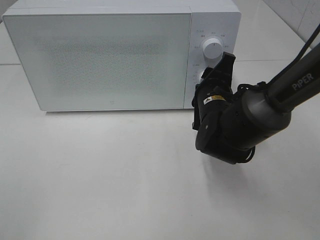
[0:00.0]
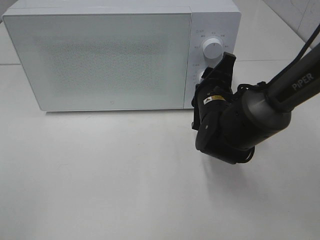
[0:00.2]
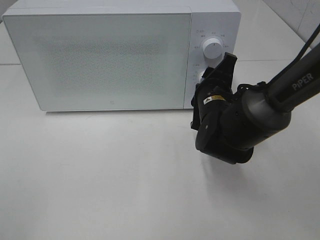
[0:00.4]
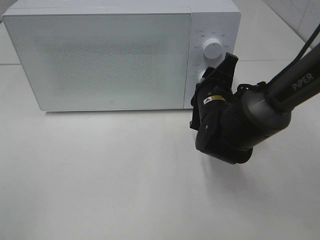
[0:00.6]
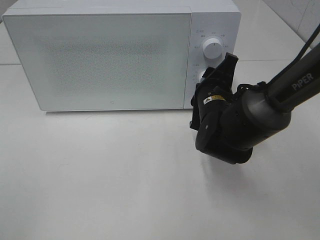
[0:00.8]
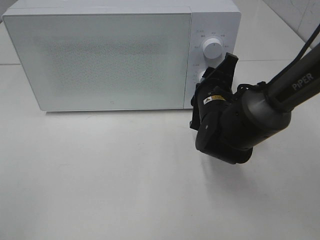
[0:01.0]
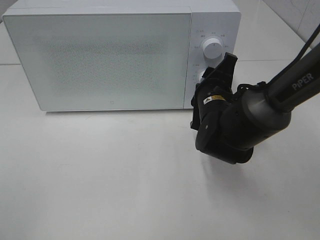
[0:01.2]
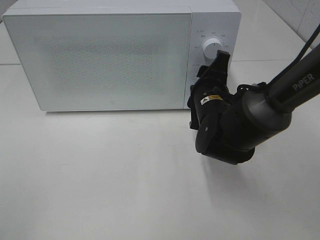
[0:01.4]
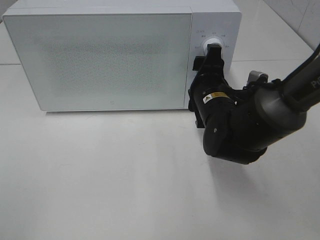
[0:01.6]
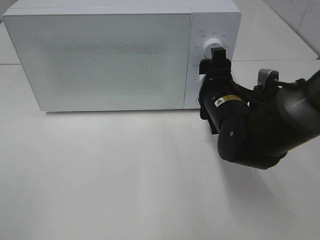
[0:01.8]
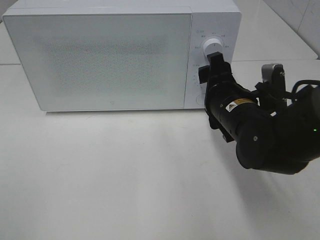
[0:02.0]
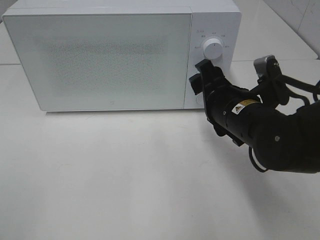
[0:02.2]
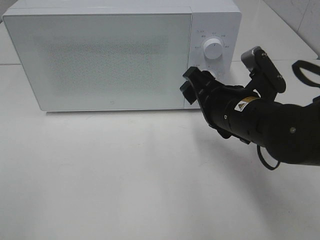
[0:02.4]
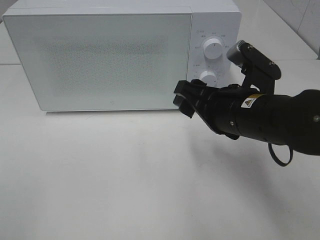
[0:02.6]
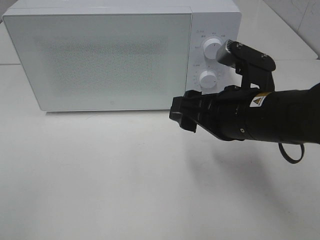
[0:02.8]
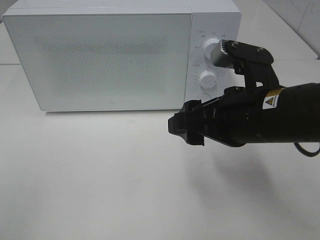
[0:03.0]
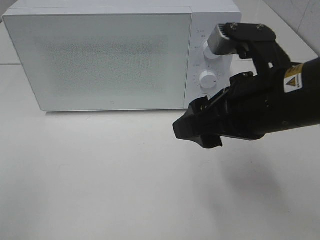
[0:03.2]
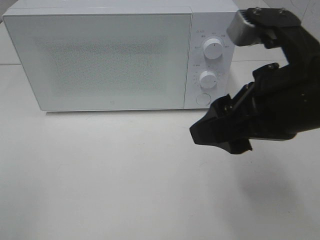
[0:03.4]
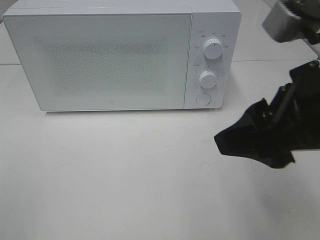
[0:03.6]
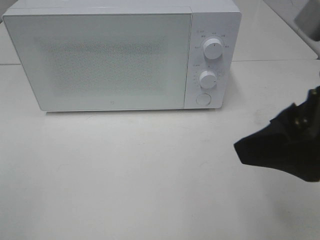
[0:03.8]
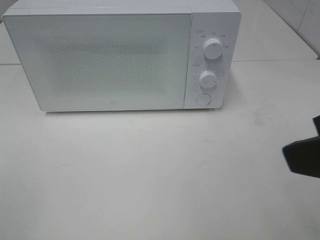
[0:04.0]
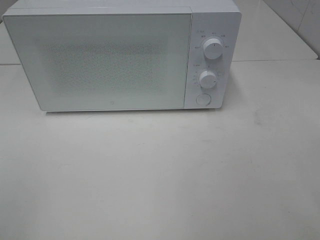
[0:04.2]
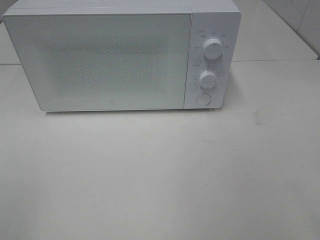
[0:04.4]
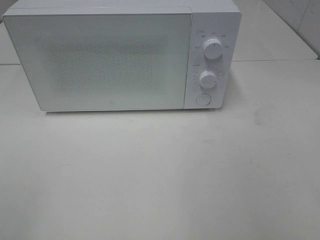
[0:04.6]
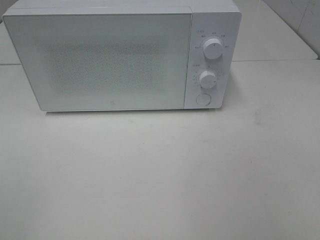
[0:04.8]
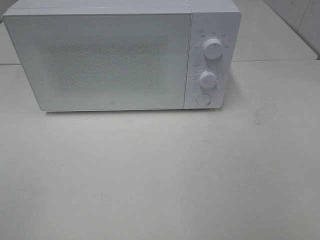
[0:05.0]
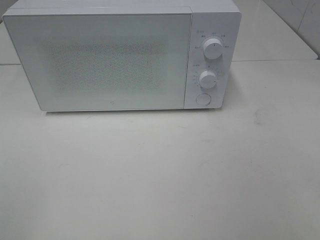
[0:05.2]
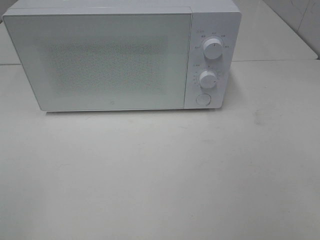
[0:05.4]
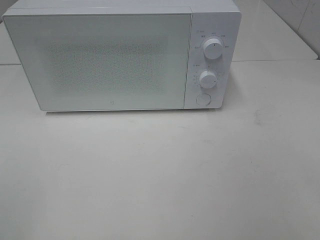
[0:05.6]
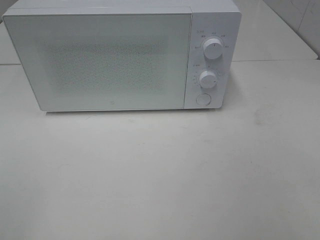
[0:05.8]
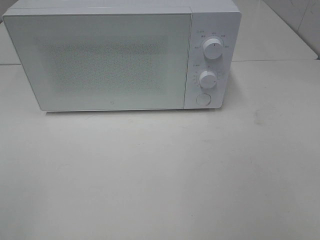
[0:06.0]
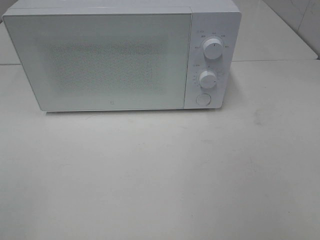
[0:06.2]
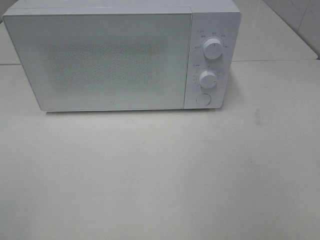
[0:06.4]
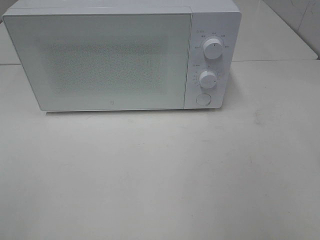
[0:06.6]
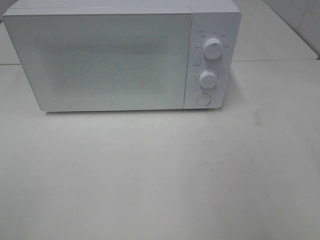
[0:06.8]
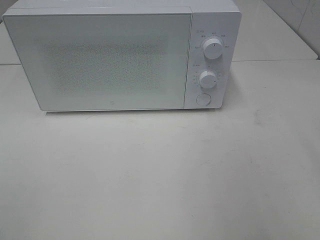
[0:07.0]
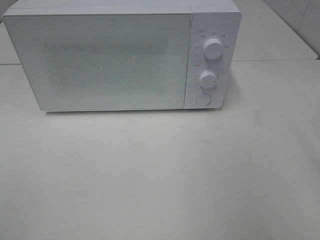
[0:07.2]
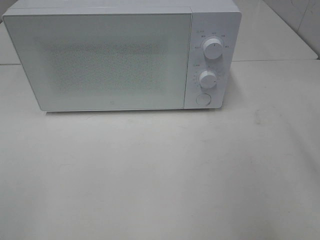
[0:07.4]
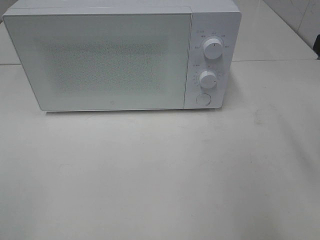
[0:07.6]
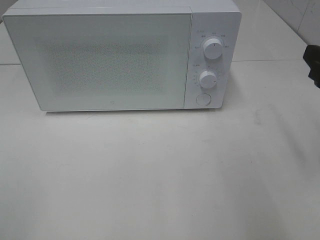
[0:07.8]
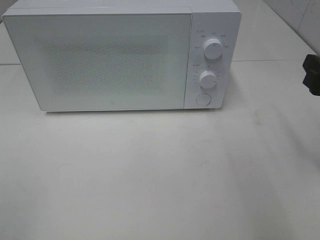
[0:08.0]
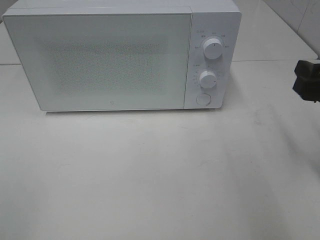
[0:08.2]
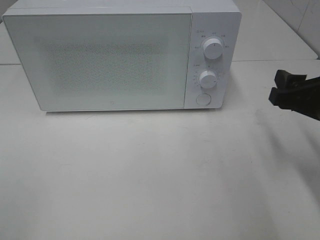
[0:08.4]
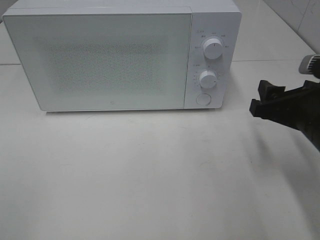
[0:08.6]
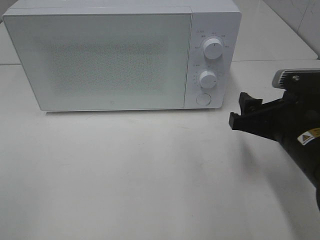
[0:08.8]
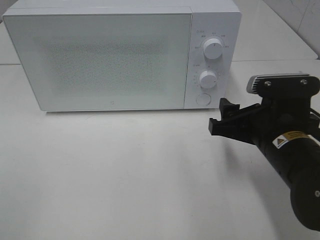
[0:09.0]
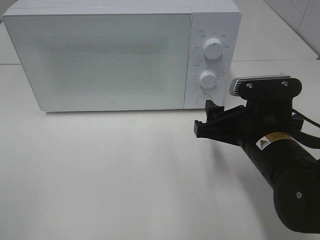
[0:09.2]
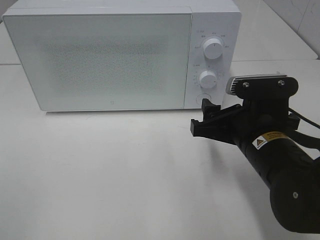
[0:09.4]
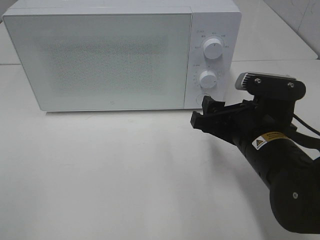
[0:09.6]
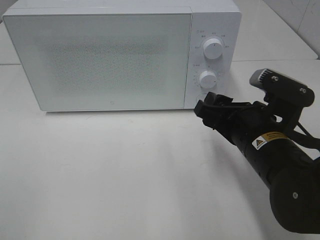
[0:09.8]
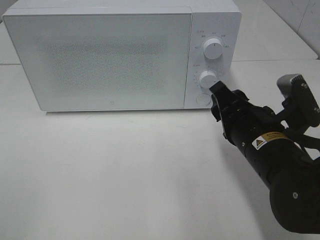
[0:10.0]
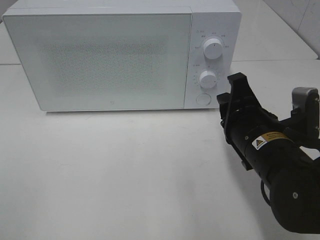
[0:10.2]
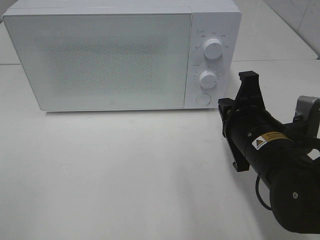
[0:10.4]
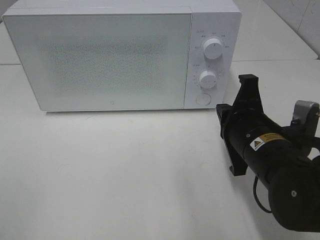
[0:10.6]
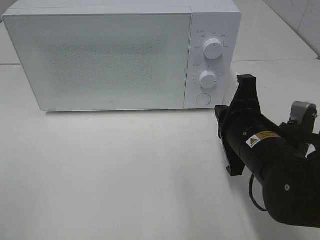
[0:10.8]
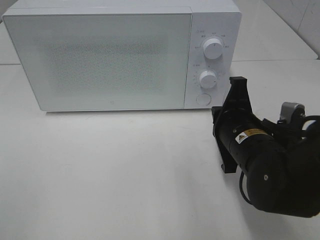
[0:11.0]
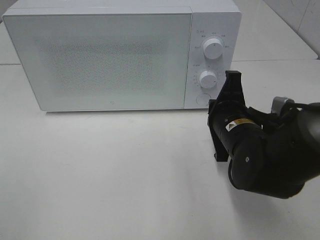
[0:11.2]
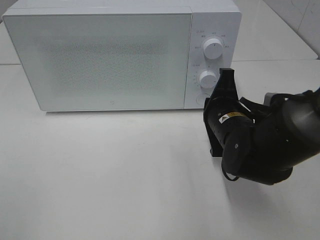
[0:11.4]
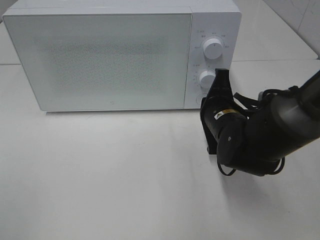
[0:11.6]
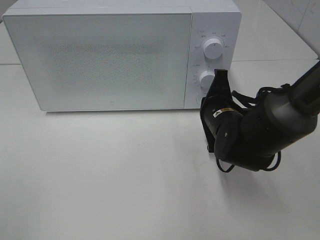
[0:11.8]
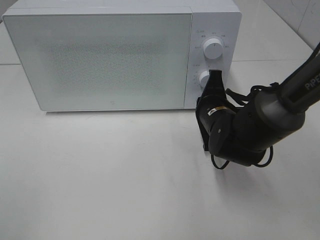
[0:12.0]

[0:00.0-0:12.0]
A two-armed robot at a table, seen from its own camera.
Task of the whole recording: Heat the burger.
Step, 0:00.0 to 0:02.0: Right hand: twist timer button.
0:00.0 to 0:01.6: The grippers stay close to where they were, moving slightly.
0:01.6 to 0:03.0: The right gripper heads backward and upward, covering some 15 cm.
0:03.0 to 0:04.4: The right gripper goes about 25 cm backward, to the right and upward.
0:07.6 to 0:09.0: The right gripper shifts some 15 cm downward and to the left.
0:09.0 to 0:10.4: The right gripper closes its fingers.
0:10.4 to 0:12.0: The right gripper shifts about 10 cm forward and downward.

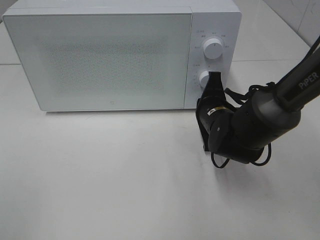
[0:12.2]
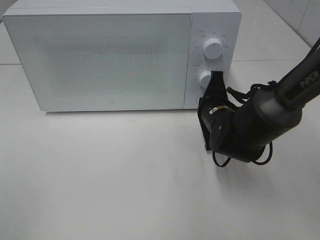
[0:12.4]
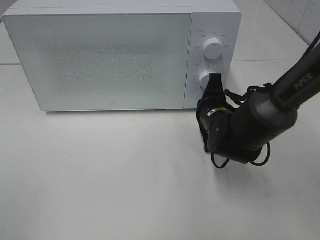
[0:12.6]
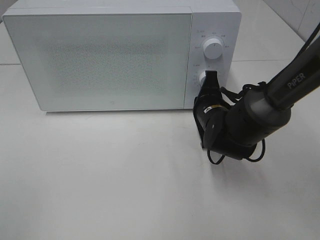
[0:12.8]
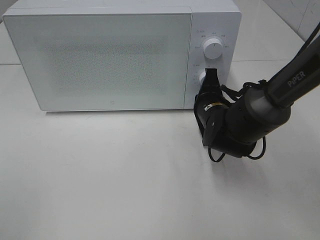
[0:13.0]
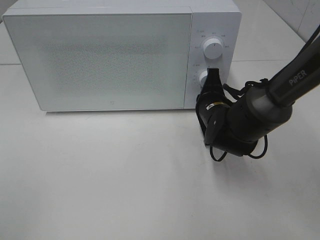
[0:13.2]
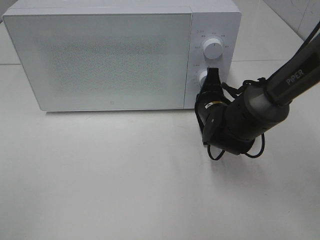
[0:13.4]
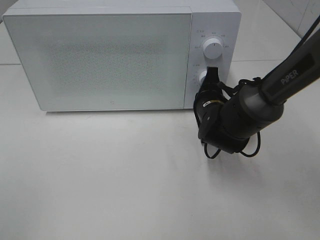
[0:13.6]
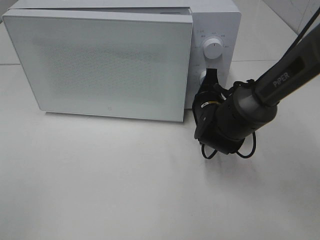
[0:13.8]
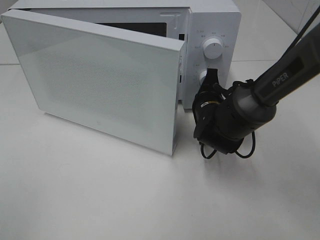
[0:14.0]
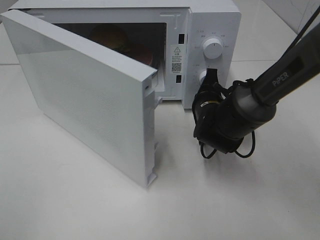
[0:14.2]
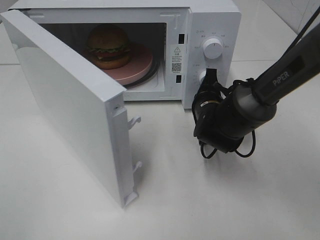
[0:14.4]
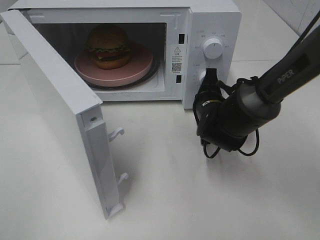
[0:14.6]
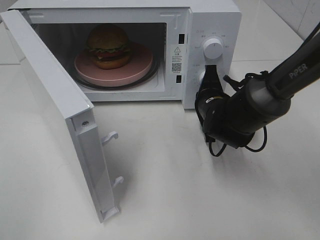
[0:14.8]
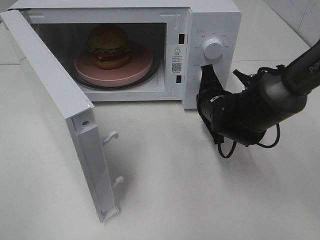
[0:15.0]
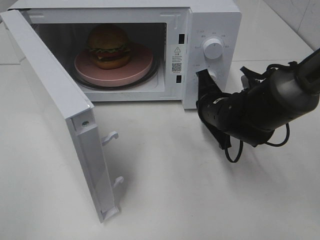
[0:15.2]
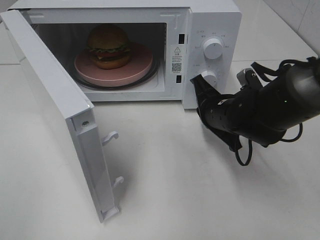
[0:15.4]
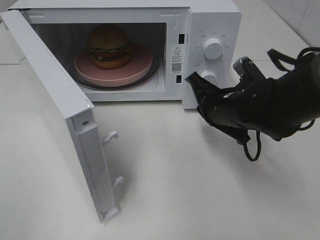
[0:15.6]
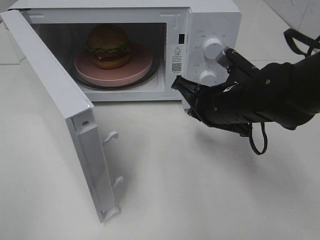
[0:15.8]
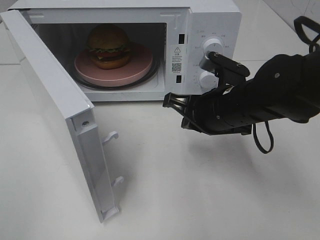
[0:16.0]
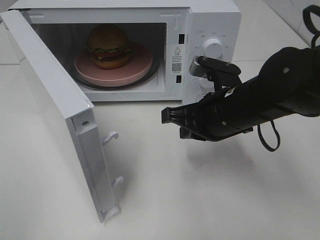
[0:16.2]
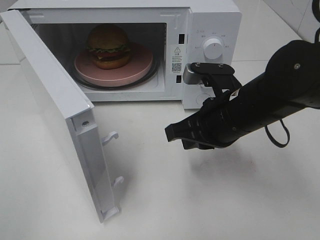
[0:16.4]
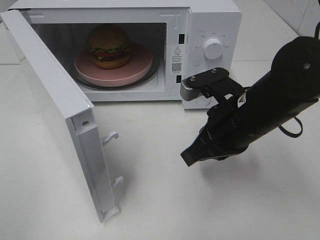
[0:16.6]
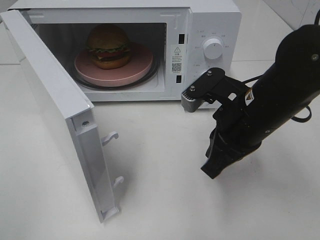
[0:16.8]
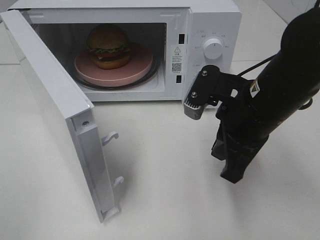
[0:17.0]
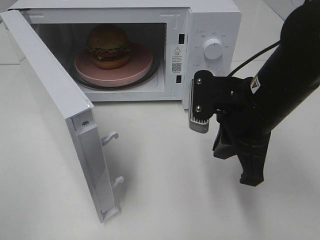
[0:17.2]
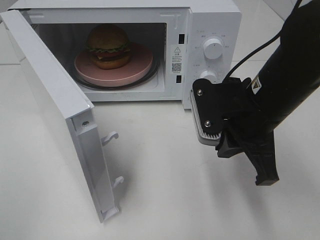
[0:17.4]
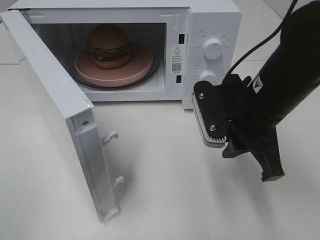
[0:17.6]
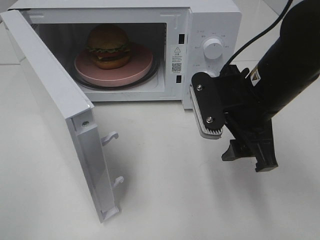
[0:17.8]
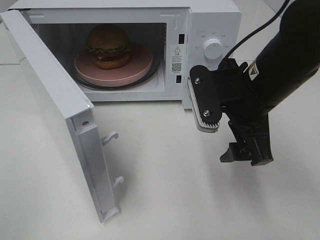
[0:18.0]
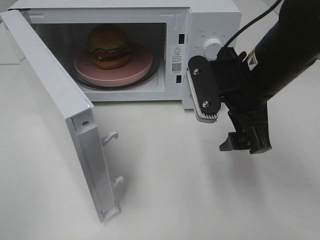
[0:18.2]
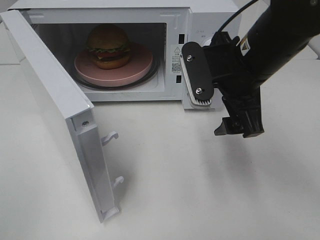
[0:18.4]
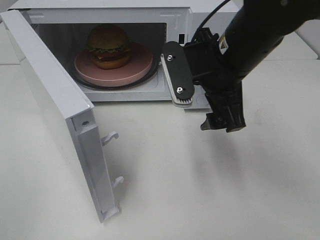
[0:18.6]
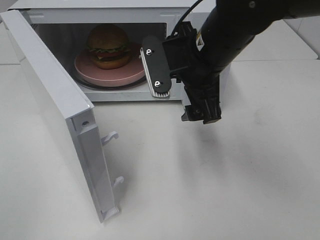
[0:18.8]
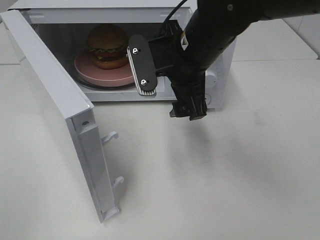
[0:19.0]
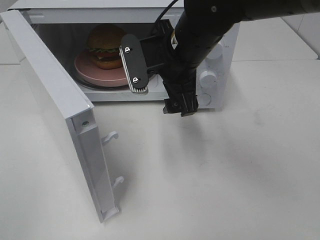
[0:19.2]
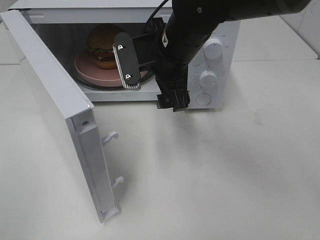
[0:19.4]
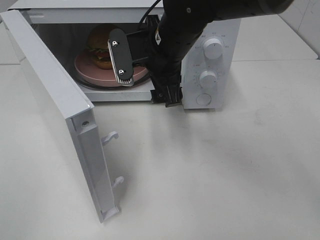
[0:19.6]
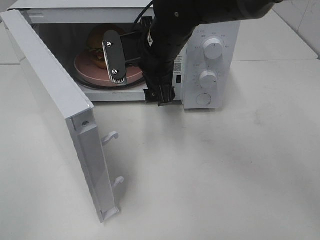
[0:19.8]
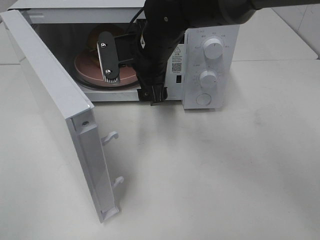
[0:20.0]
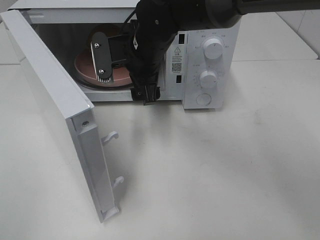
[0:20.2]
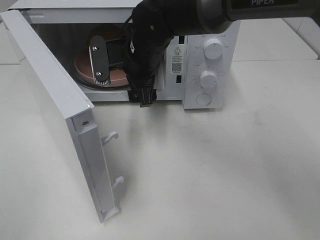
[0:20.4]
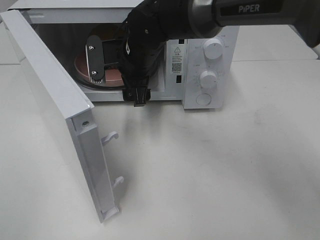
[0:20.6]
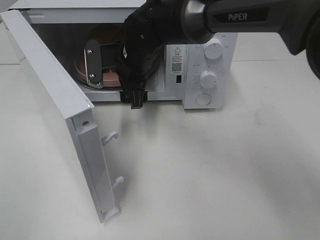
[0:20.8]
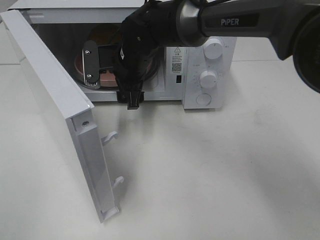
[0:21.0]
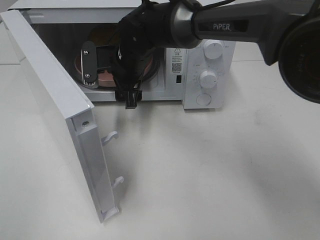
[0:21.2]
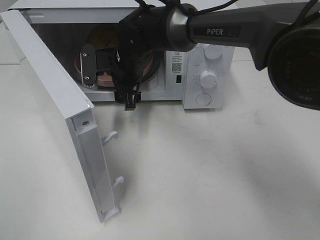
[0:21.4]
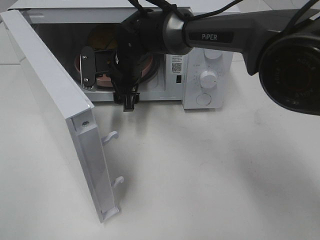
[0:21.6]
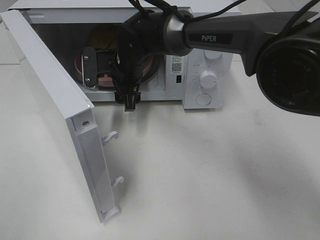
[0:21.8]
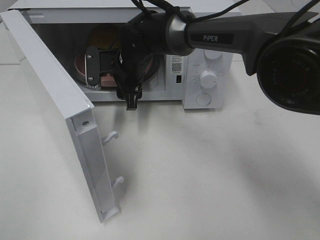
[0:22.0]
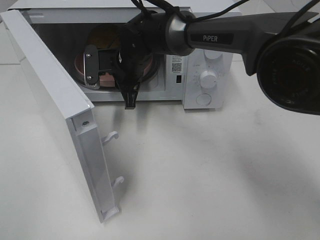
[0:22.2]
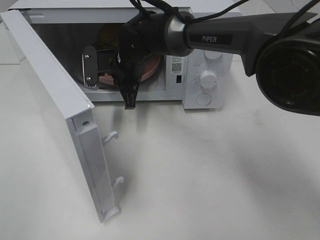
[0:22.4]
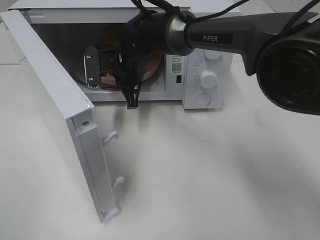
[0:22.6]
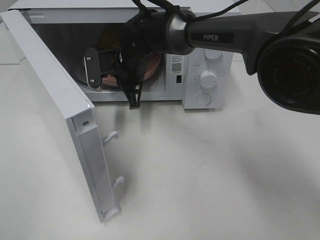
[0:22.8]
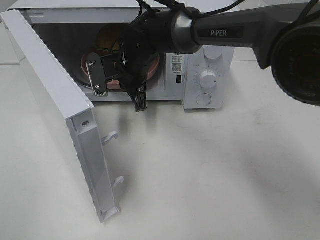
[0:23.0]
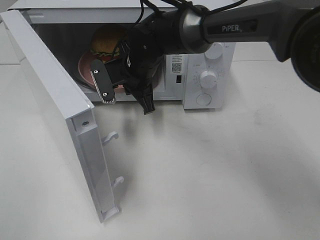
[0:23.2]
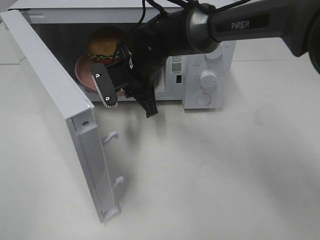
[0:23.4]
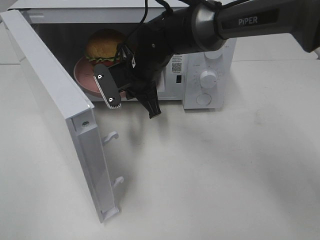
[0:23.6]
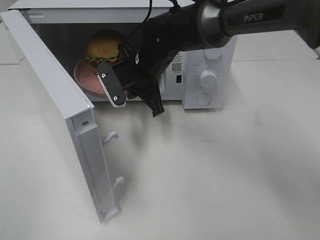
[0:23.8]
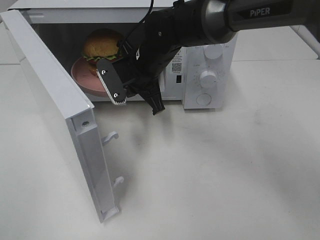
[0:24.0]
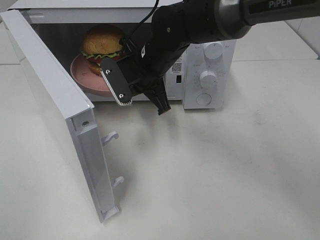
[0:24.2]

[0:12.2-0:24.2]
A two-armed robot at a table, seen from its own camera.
Task of the whole recording: Heat the burger.
Step, 0:12.2 to 0:15.2: Right hand: press the switch.
Step, 0:15.4 to 0:22.4: Right hand: grab the plate with the hamburger.
0:12.2 to 0:13.8: The grippers move only a little.
0:15.2 to 0:16.6: The right gripper is displaced backward and upward by about 10 cm.
0:16.6 to 0:18.2: The right gripper moves upward, roughly 5 cm, and opens its fingers.
0:18.2 to 0:19.8: The right gripper shifts roughly 15 cm to the left and forward.
0:19.8 to 0:21.2: The right gripper is displaced forward and to the left by about 5 cm.
0:21.2 to 0:22.6: The right gripper closes.
0:22.6 to 0:24.2: The right gripper moves backward, about 5 cm.
